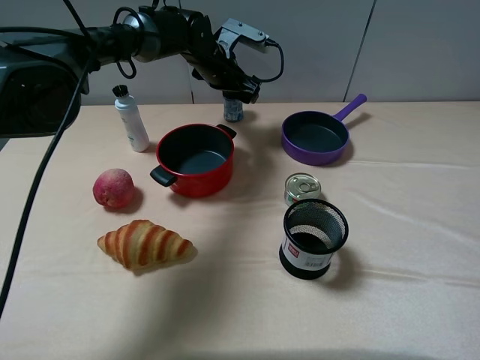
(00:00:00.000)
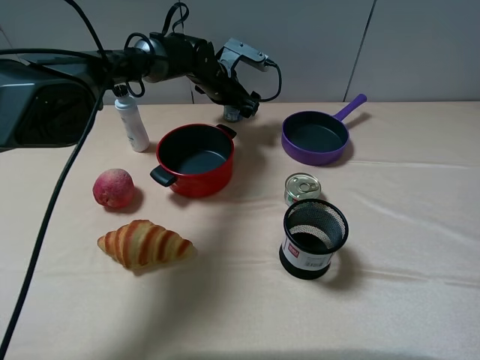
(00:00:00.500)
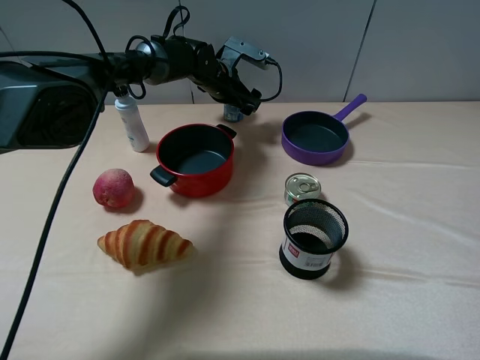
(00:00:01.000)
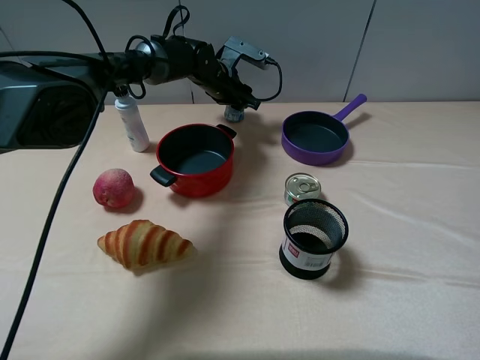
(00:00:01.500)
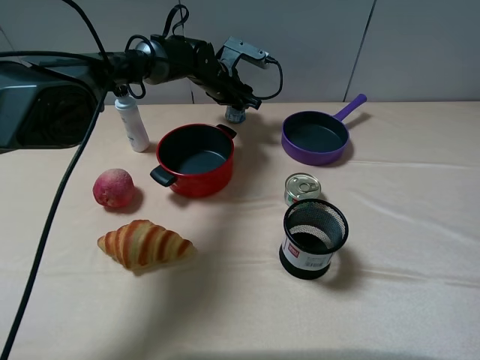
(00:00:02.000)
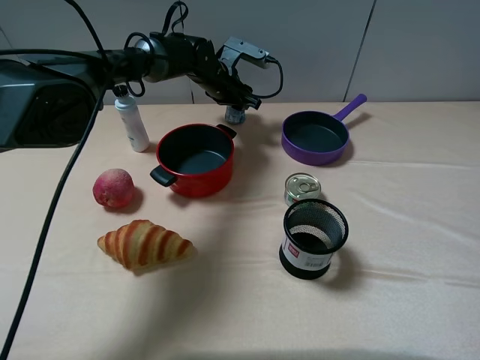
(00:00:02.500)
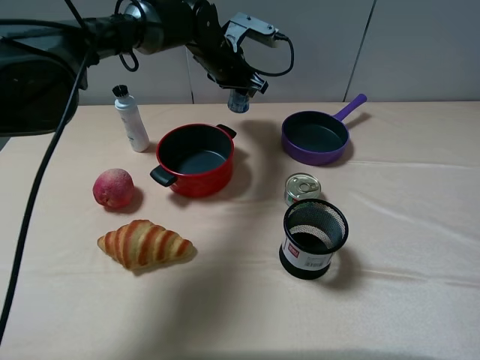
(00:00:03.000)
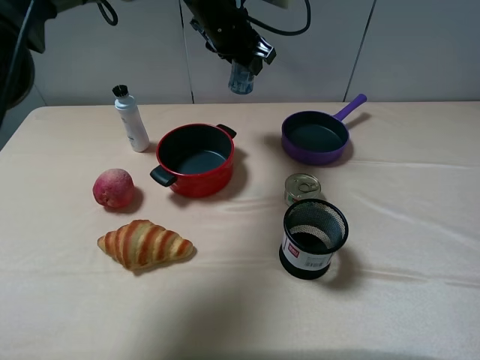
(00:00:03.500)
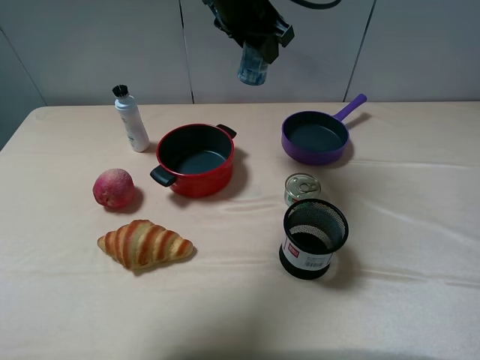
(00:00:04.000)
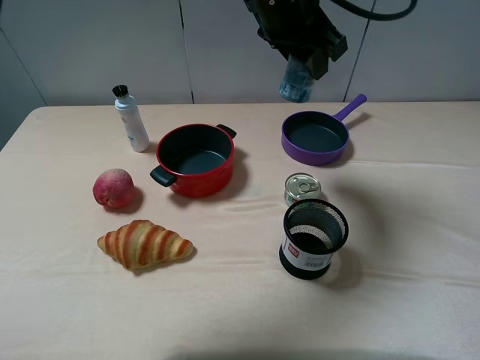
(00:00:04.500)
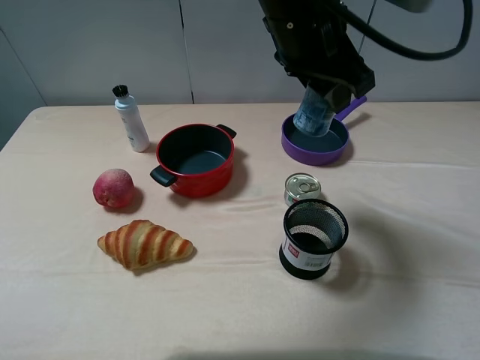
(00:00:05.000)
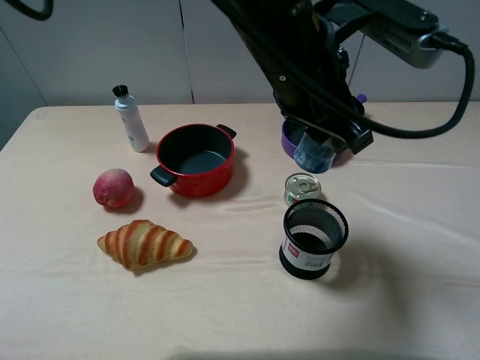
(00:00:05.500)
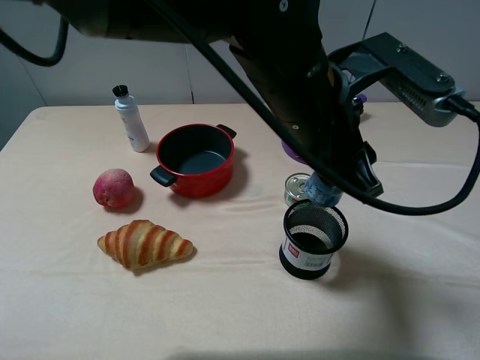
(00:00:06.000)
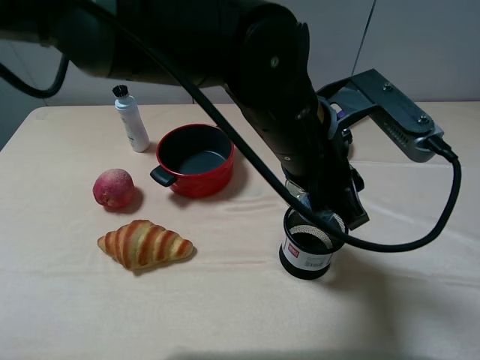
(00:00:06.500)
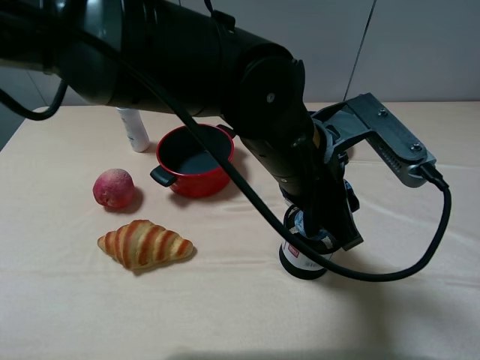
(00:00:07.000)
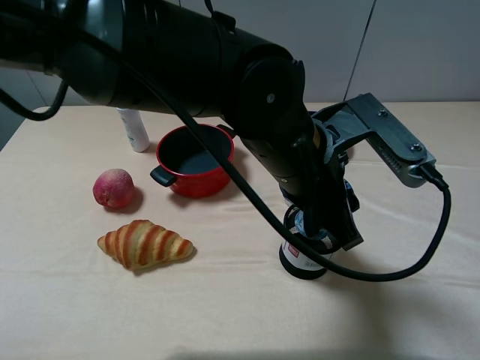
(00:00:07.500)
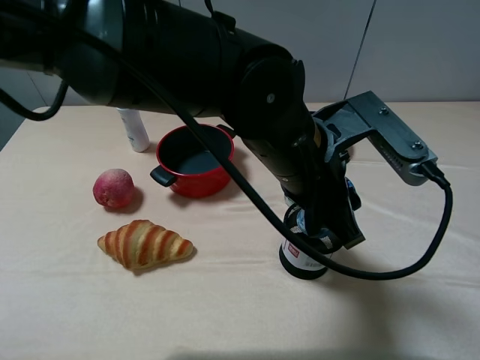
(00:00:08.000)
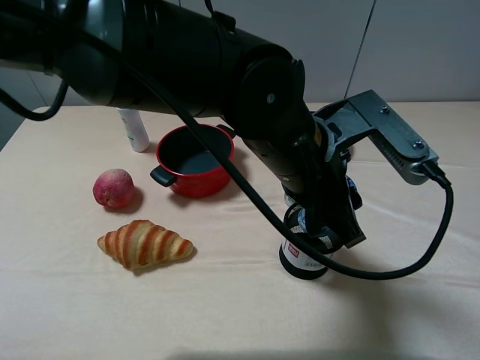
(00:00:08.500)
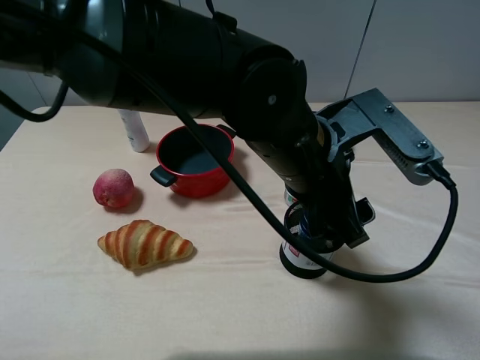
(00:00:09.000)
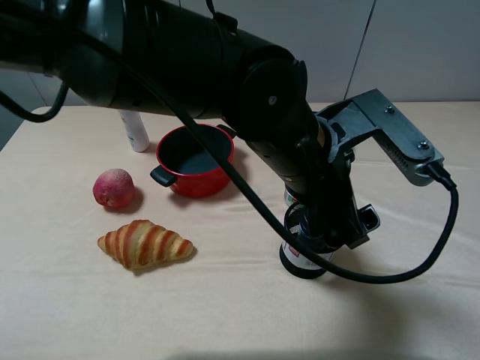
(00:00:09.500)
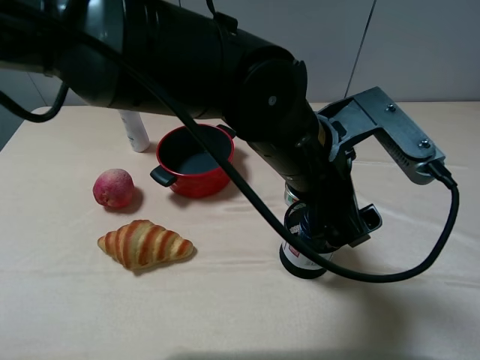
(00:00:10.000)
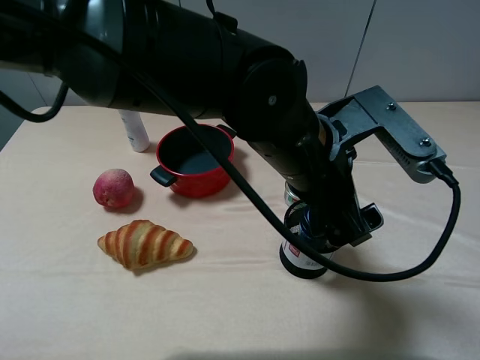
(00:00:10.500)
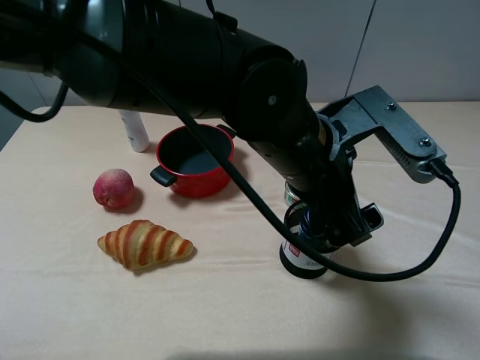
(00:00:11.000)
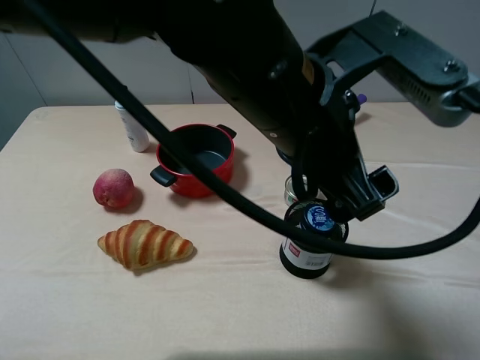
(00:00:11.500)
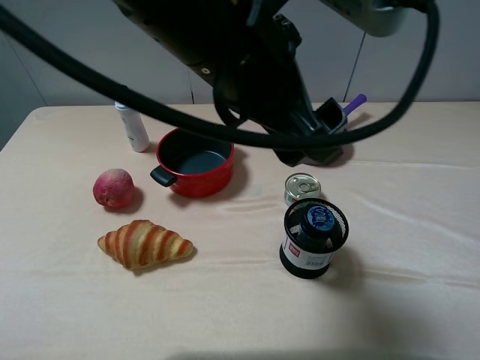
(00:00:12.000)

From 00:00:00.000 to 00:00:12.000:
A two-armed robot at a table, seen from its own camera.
Task of the whole recording: pick up an item with a gripper and place it in a random container on the table.
Step, from 00:00:02.000 to 00:00:09.500: Place the round chewing gum into the pen container with the left gripper.
From 00:00:00.000 to 00:00:02.000: The left gripper closes.
From 00:00:02.000 to 00:00:04.000: The left gripper goes about 20 cm upward and backward.
From 00:00:04.000 to 00:00:06.000: The left gripper heads backward, covering roughly 20 cm.
From 00:00:08.000 to 00:00:10.000: The left gripper opens.
From 00:00:10.000 to 00:00:12.000: The left gripper is displaced upward and to the left by about 15 cm.

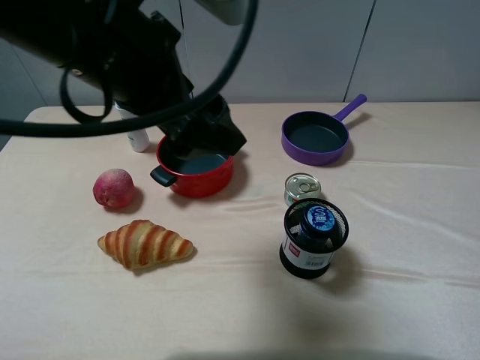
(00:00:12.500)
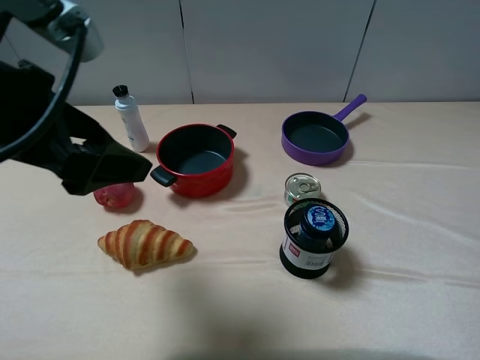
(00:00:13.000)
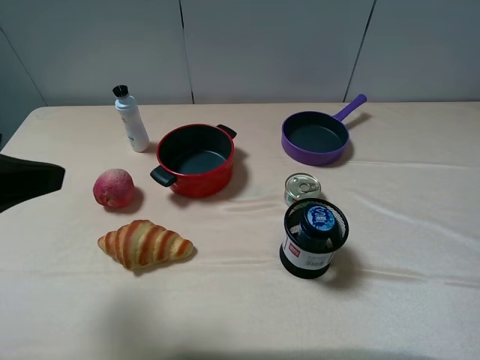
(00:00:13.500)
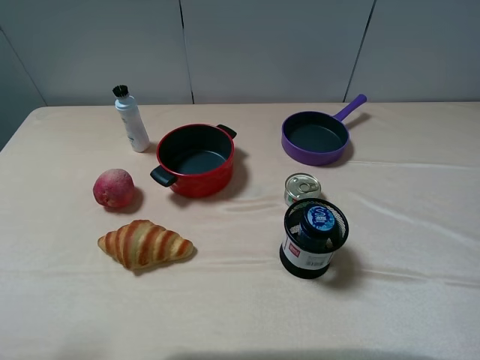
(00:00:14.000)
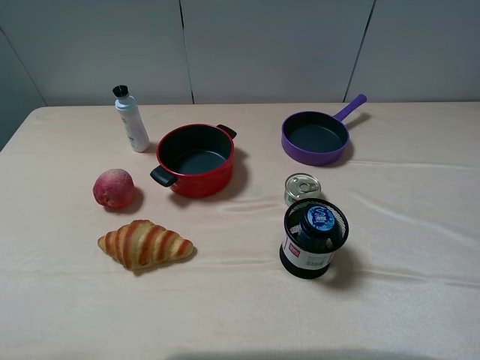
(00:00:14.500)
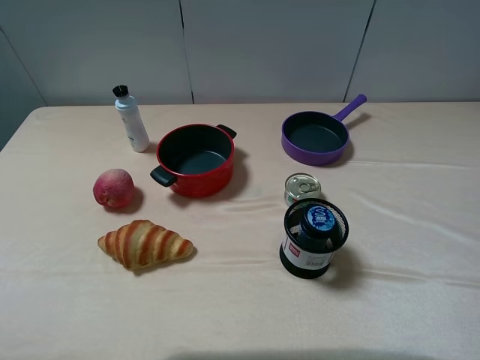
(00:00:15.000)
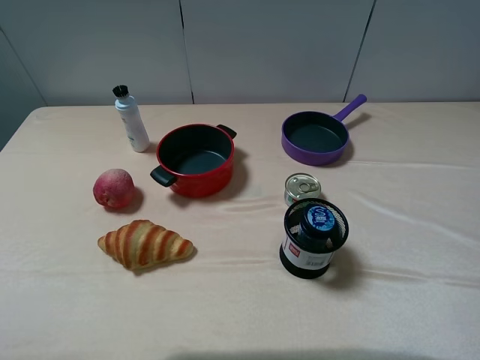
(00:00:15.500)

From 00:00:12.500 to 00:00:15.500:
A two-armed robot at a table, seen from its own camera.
Task of the whole recording: pick up an item with a gripper and place it in a random container on the table.
From 00:00:12.500 to 00:00:14.000: The left gripper is displaced to the left and backward by approximately 25 cm.
